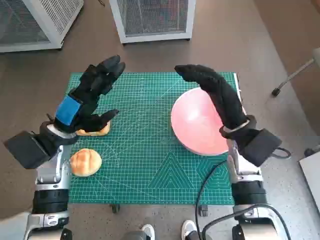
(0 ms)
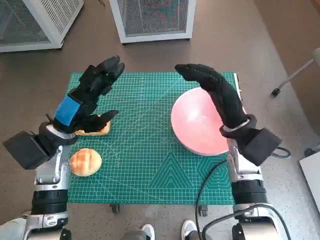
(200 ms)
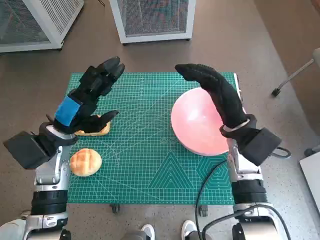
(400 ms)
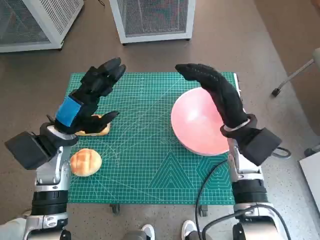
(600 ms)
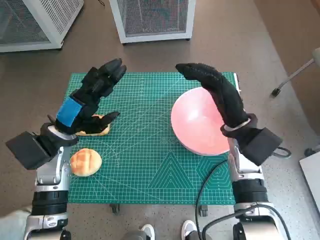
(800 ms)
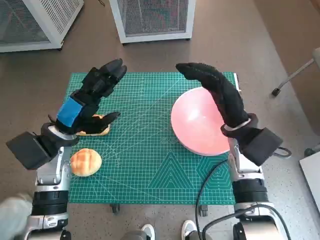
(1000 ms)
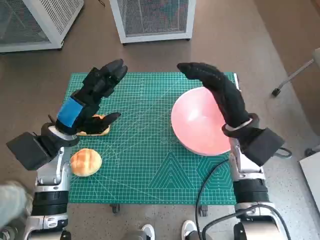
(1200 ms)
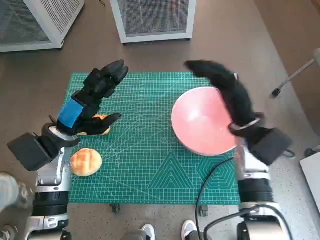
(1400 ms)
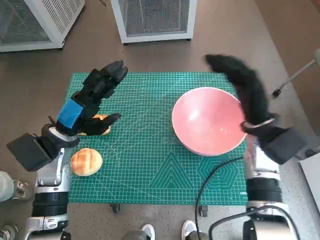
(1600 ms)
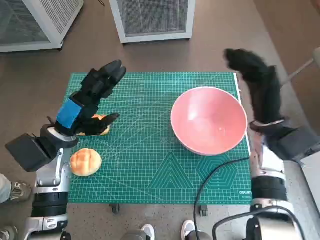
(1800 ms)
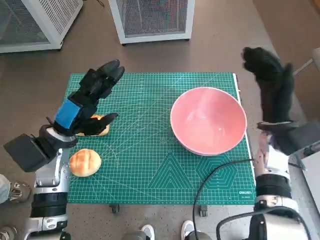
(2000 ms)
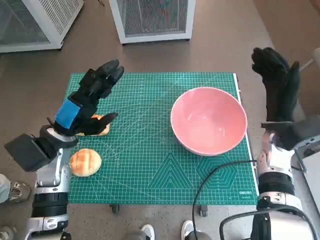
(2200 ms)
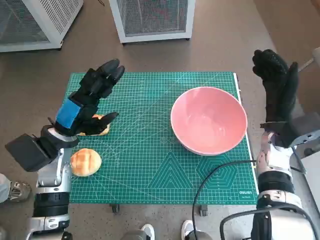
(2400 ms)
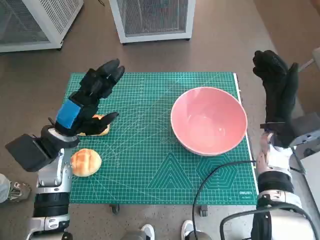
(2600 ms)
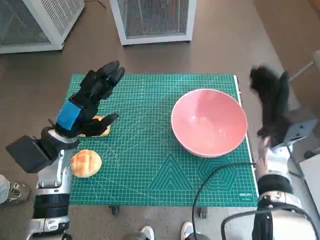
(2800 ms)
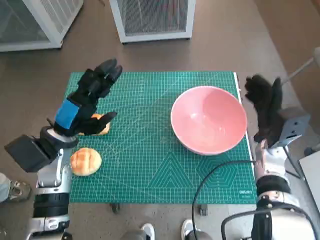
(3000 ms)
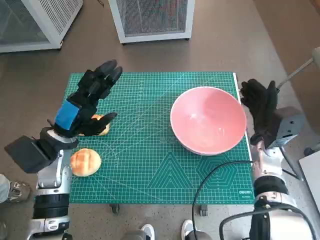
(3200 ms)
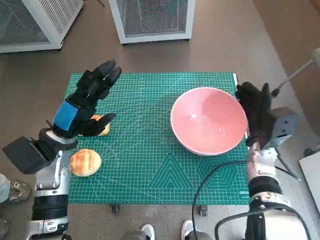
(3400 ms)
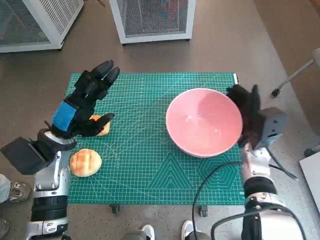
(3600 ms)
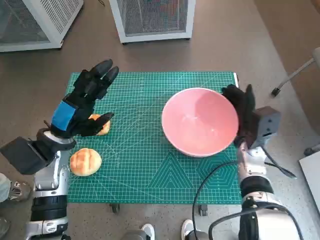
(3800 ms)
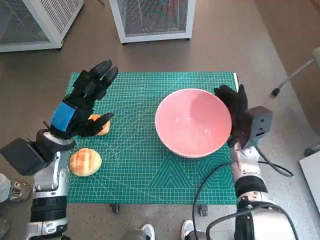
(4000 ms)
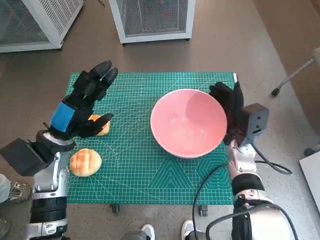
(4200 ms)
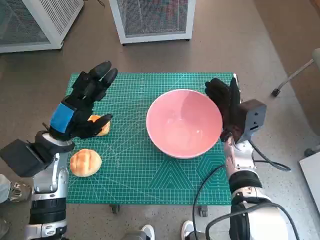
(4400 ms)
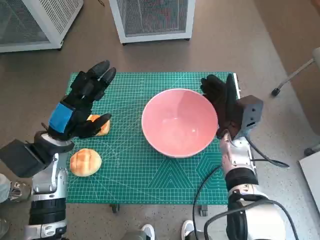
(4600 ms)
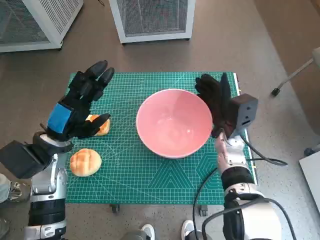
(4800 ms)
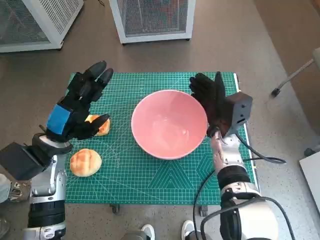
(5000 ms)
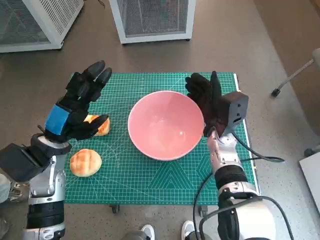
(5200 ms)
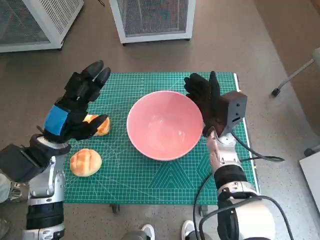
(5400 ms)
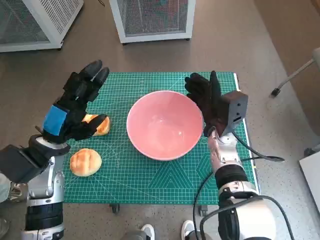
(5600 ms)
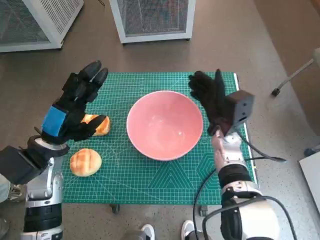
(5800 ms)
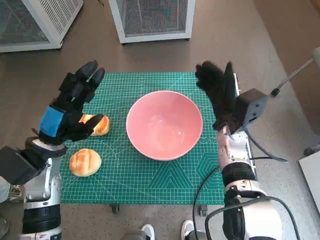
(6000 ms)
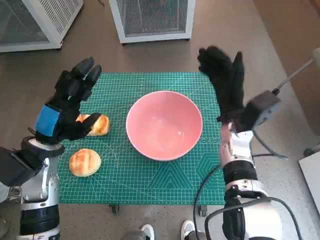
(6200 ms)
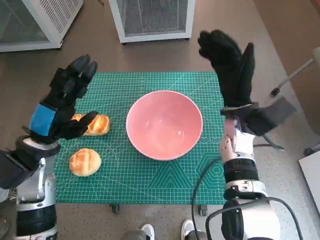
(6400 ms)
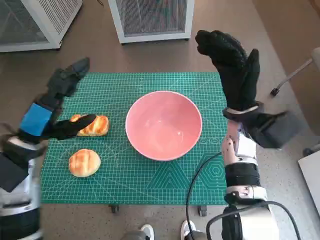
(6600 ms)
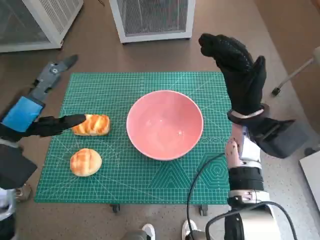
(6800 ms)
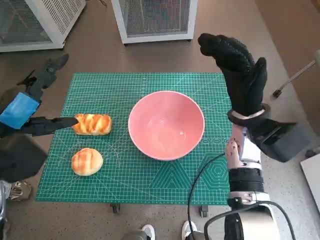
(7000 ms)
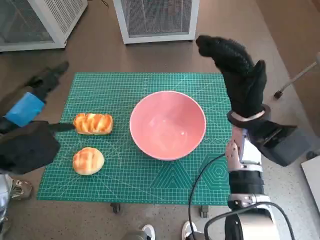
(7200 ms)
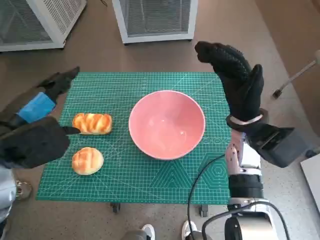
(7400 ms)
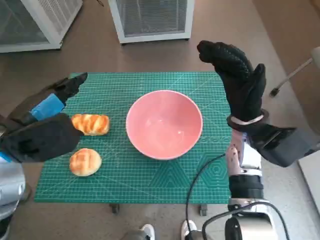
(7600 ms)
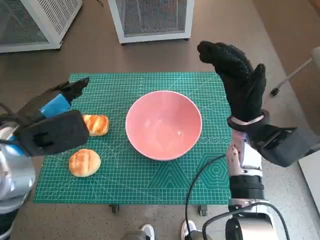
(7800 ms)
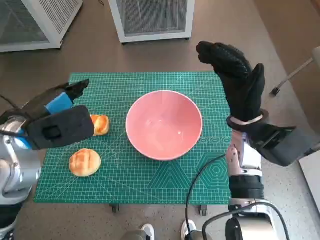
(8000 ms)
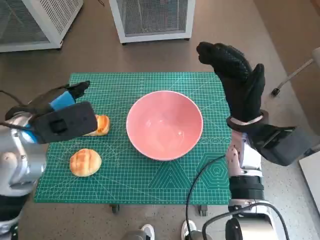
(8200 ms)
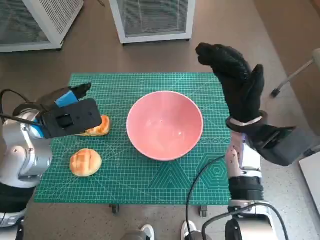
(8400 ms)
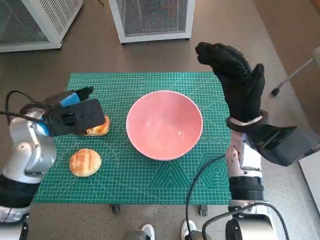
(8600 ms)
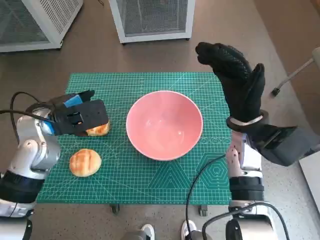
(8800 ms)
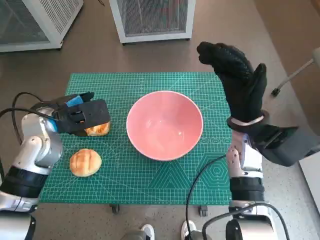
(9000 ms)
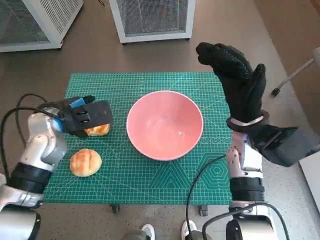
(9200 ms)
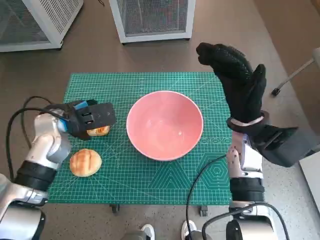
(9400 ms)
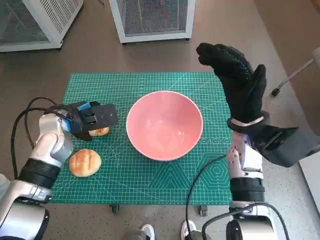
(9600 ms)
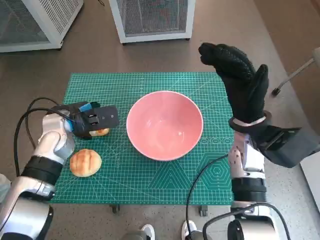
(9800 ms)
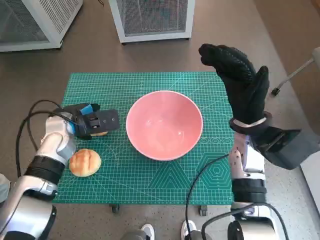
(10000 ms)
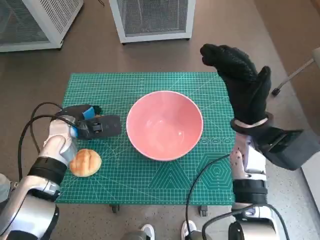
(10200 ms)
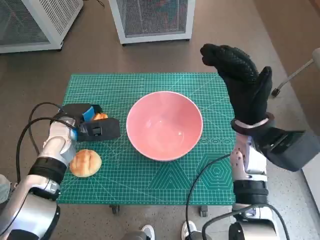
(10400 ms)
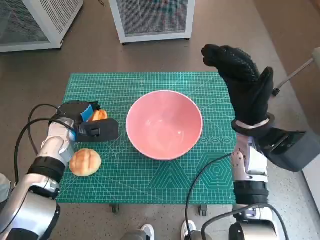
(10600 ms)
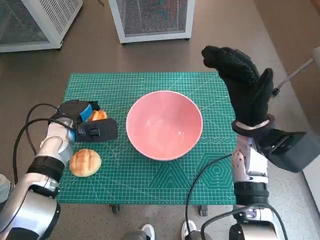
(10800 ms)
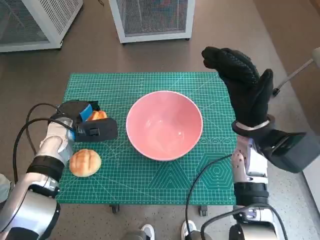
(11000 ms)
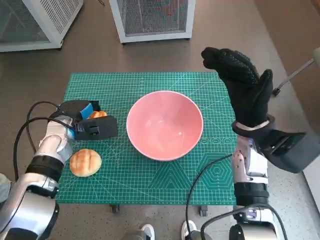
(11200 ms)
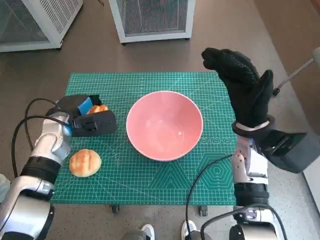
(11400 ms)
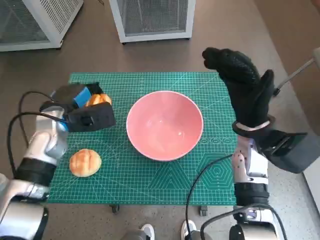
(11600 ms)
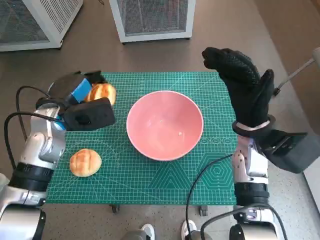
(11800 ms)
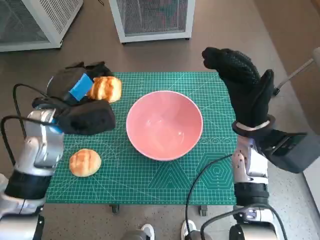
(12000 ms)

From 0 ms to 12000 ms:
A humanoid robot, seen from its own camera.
Task of the whole recording: Push the bowl into the center of the table and put the bread into the bowl.
Step, from 0 ms to 5800 ms: Move the pink bowl to the center of table with right hand.
Step, from 6000 ms to 10200 ms: Grasp the long bread with left hand.
From 1600 ms to 3000 ms: The right hand goes about 5 cm downward.
From 3000 ms to 4400 ms: The right hand heads to the left, covering some 5 cm.
From 6000 ms to 7600 ms: The right hand heads upward, covering about 5 cm, while the left hand is displaced upward by about 10 cm.
From 7600 ms to 9000 ms: The left hand shifts roughly 10 cm forward and downward.
From 9000 ms to 10400 ms: The left hand shifts about 5 cm downward.
From 10400 ms to 12000 ms: The left hand heads upward, covering roughly 10 cm.

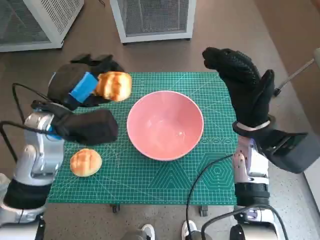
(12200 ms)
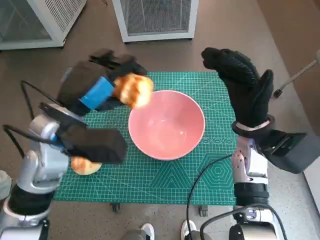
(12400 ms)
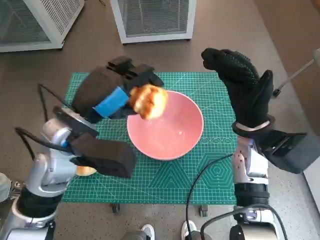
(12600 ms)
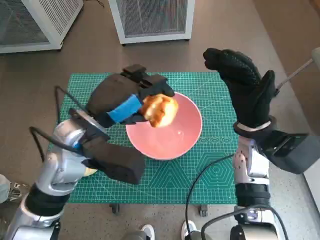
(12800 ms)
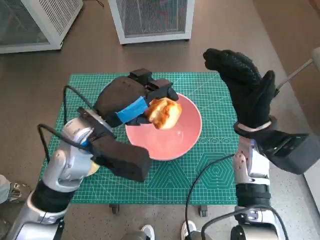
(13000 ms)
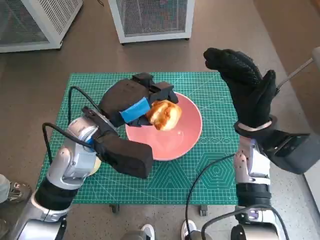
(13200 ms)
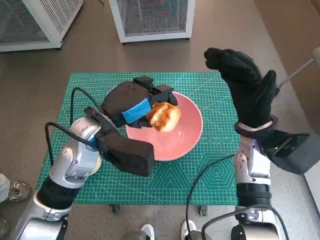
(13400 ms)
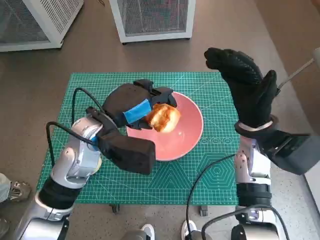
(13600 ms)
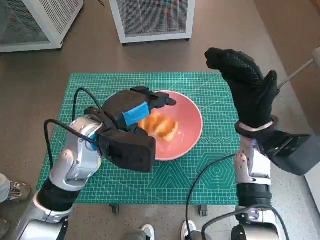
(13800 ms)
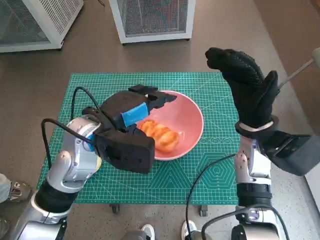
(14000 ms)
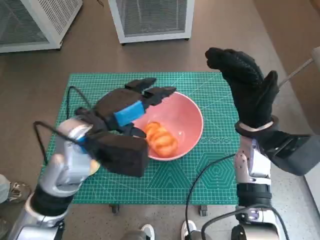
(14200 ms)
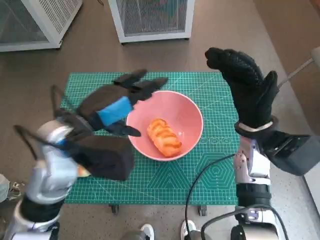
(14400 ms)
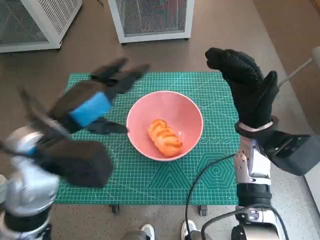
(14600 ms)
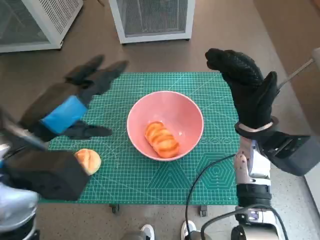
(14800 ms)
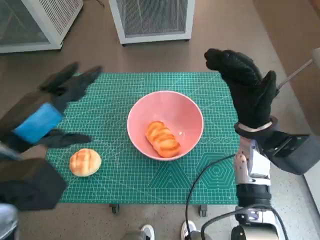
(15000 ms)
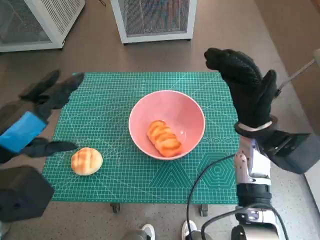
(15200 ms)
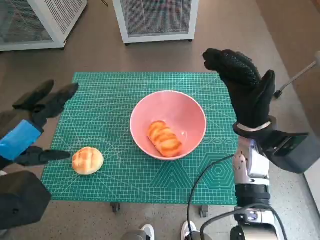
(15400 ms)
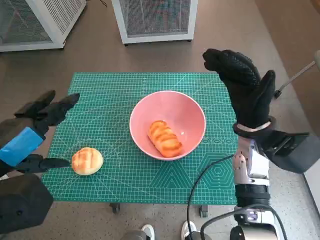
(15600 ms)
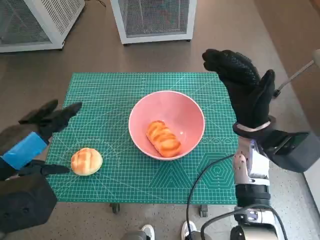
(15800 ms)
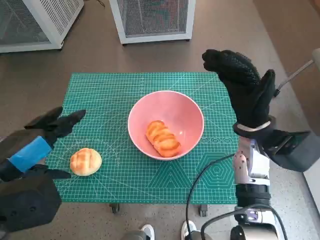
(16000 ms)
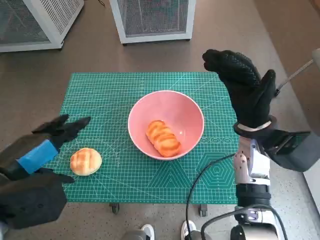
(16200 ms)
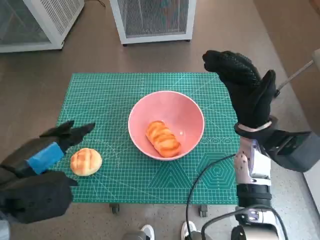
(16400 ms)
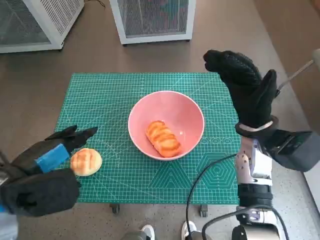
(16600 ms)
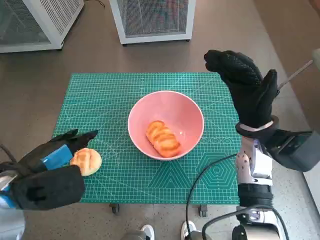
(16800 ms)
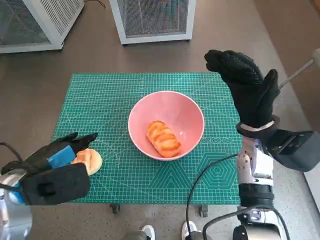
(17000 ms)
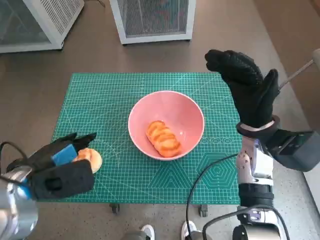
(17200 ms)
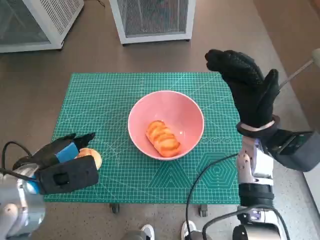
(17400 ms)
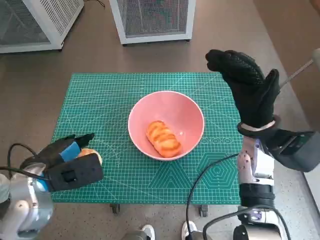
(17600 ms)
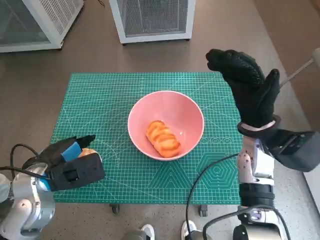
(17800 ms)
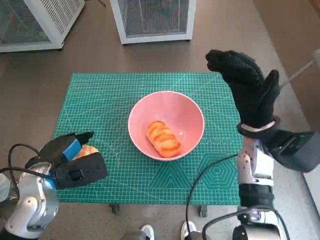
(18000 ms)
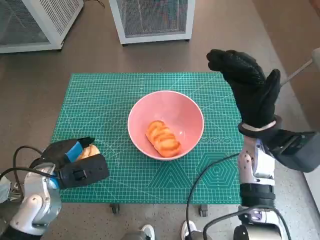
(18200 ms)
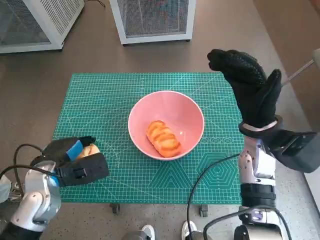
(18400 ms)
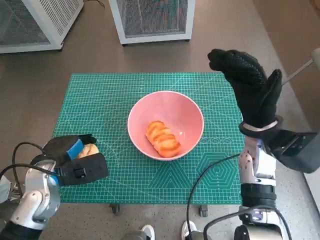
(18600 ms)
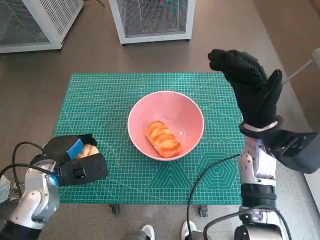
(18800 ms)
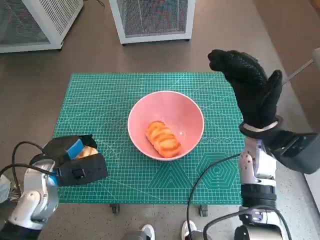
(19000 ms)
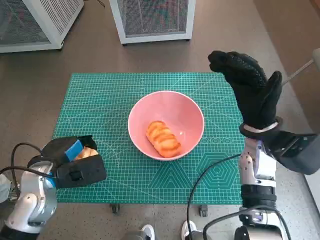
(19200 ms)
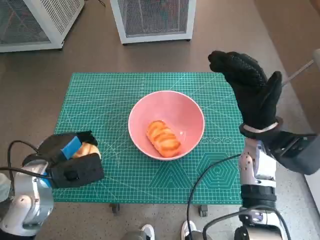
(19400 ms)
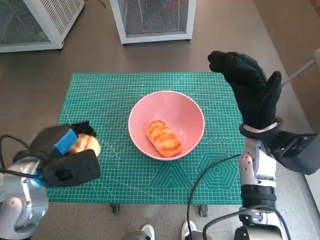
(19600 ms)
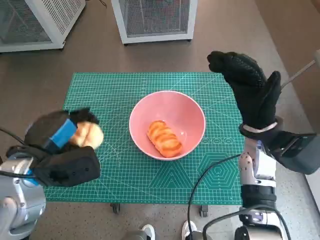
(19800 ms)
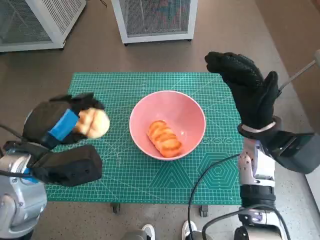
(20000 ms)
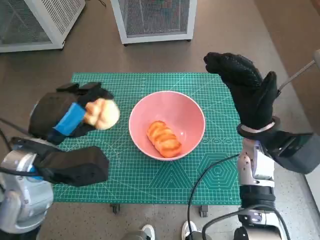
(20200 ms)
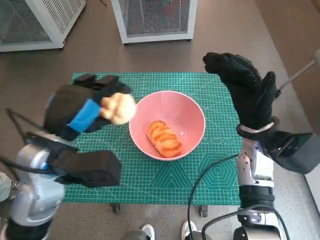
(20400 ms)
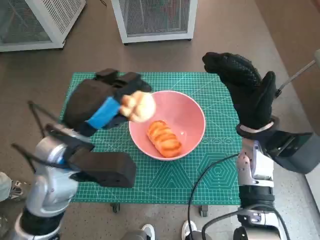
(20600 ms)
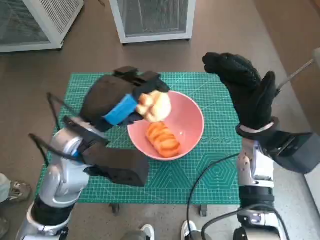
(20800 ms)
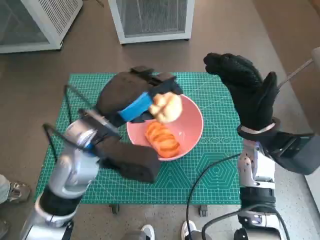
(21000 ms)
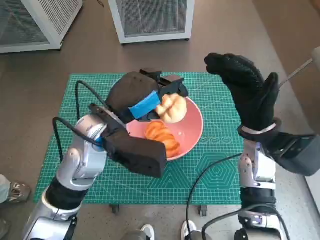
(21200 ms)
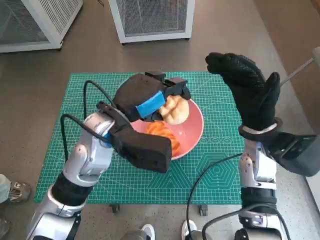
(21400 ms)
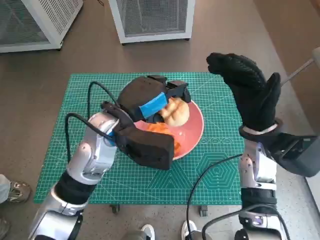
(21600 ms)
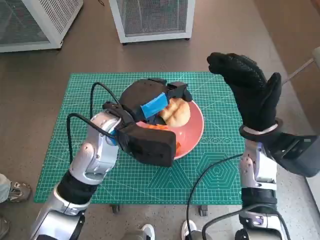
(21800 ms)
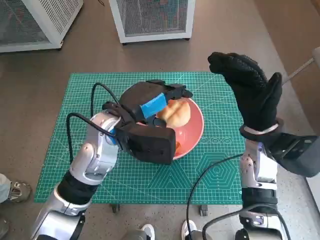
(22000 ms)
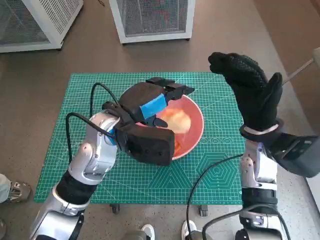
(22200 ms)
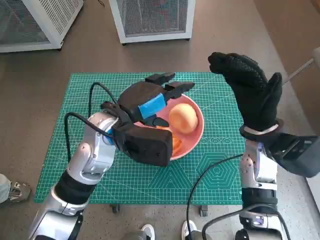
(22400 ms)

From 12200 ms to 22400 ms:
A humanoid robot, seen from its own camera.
Task of the whole recording: Push the bowl into the center of the table and put the bread into the bowl.
Step, from 14200 ms to 18200 ms: Grasp the round bread with left hand.
Step, from 18400 ms to 22000 ms: Place the round bread in pink bowl with left hand.
From 12200 ms to 13600 ms: The left hand shifts about 5 cm to the right.
From 13600 ms to 15200 ms: The left hand heads backward, to the left and upward, covering some 15 cm.
From 15200 ms to 16600 ms: The left hand moves downward, some 5 cm.
From 16600 ms to 18000 ms: The left hand moves downward, approximately 10 cm.
From 18000 ms to 19400 ms: The hands stay close to where they were, moving slightly.
From 19400 ms to 21000 ms: The left hand travels to the right and upward by roughly 15 cm.
